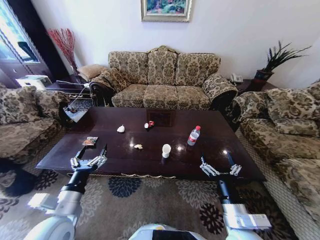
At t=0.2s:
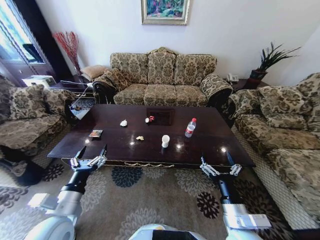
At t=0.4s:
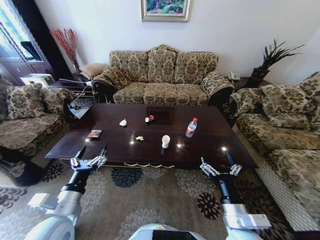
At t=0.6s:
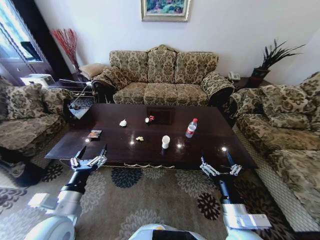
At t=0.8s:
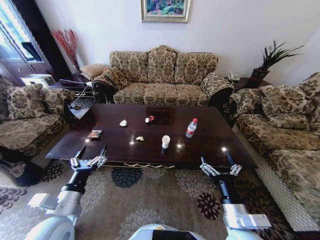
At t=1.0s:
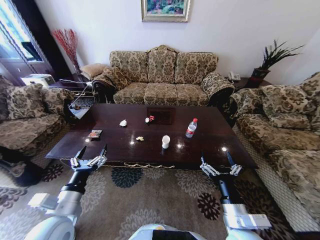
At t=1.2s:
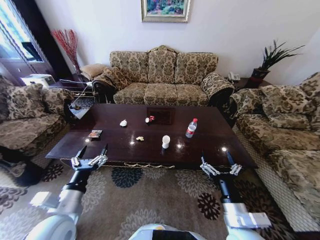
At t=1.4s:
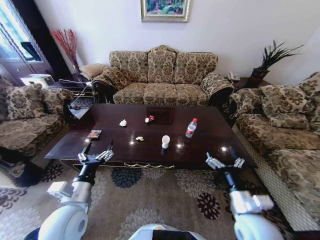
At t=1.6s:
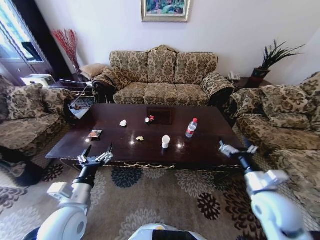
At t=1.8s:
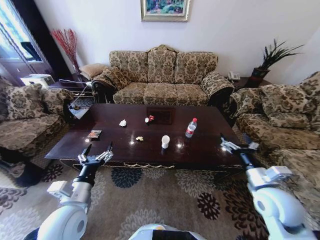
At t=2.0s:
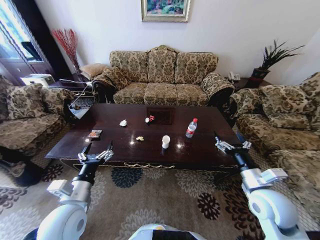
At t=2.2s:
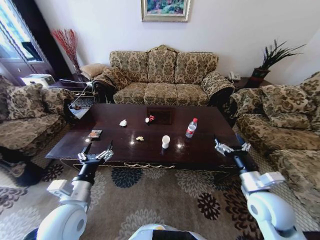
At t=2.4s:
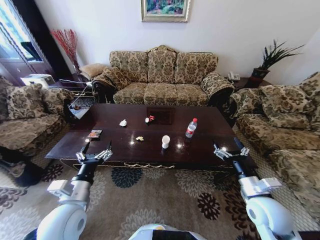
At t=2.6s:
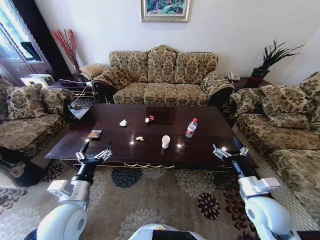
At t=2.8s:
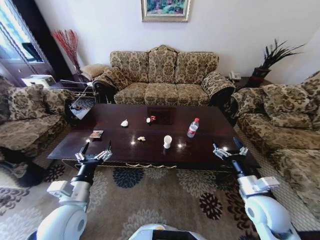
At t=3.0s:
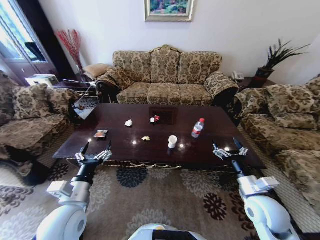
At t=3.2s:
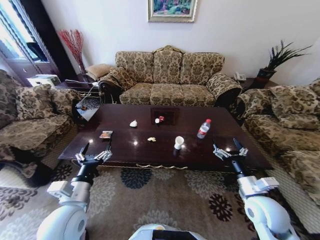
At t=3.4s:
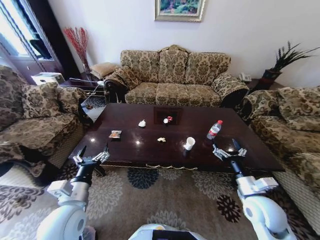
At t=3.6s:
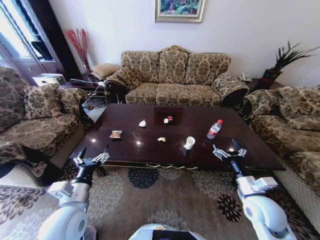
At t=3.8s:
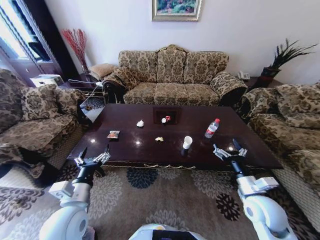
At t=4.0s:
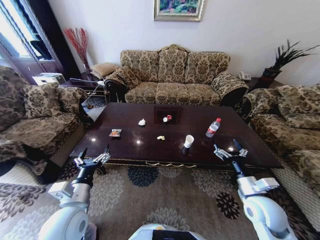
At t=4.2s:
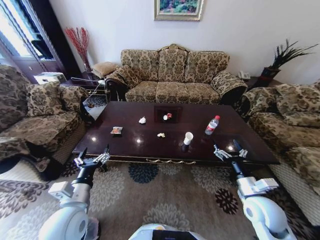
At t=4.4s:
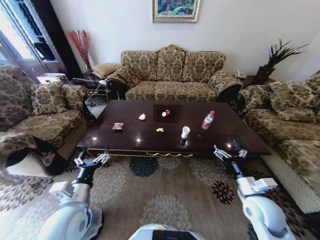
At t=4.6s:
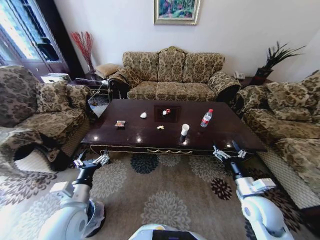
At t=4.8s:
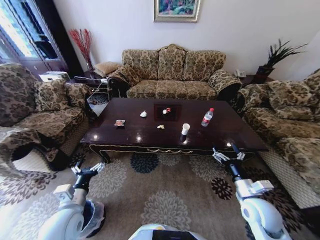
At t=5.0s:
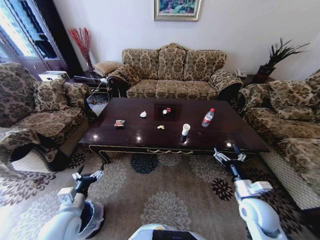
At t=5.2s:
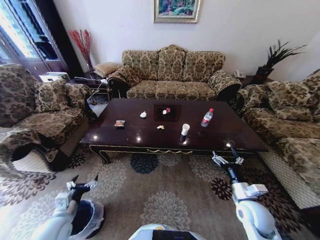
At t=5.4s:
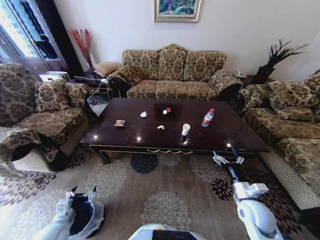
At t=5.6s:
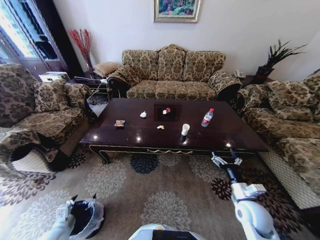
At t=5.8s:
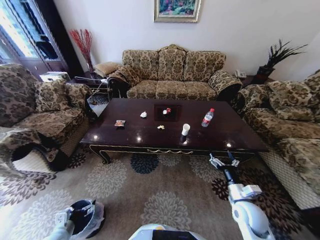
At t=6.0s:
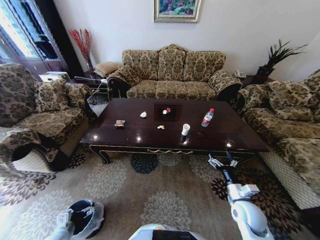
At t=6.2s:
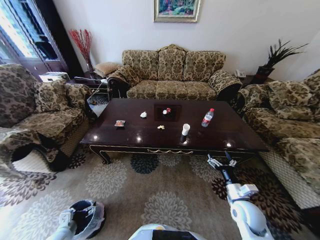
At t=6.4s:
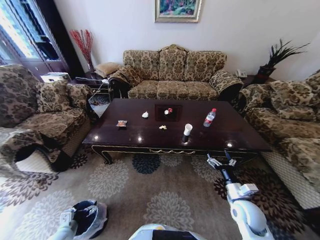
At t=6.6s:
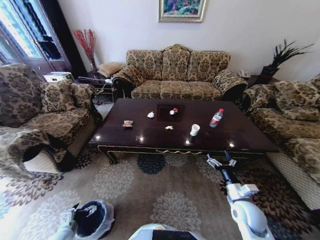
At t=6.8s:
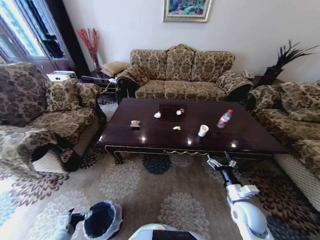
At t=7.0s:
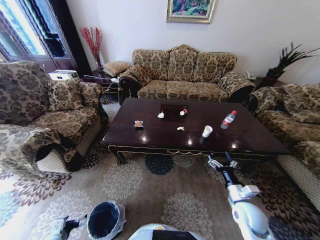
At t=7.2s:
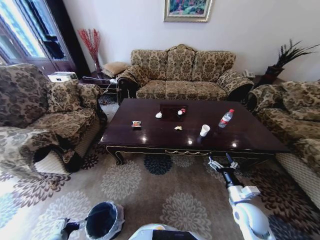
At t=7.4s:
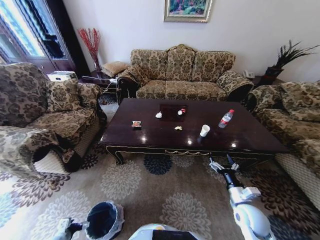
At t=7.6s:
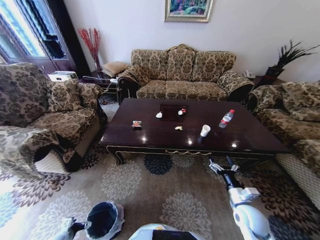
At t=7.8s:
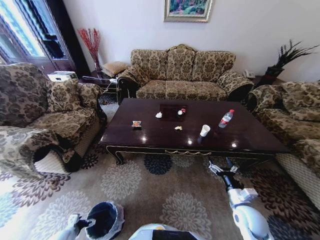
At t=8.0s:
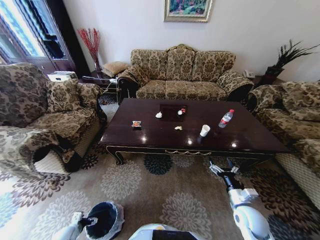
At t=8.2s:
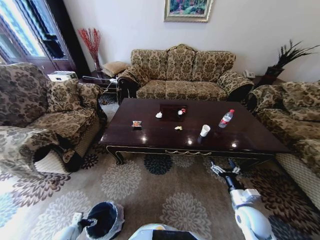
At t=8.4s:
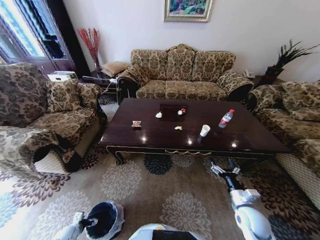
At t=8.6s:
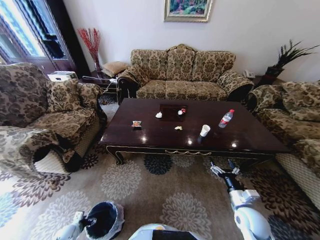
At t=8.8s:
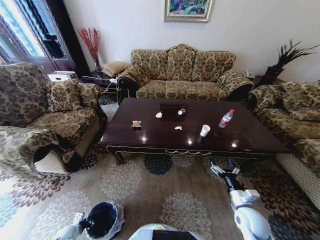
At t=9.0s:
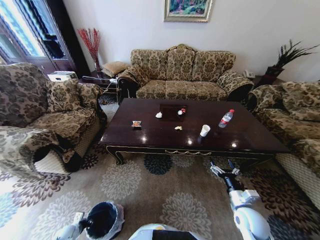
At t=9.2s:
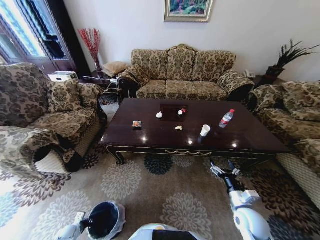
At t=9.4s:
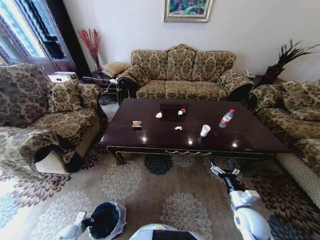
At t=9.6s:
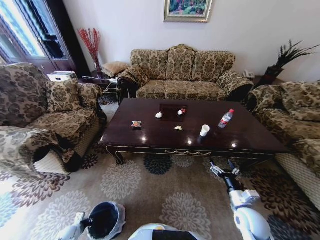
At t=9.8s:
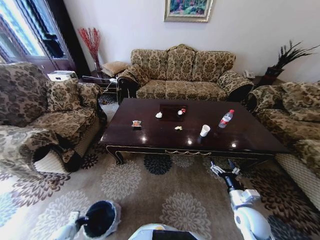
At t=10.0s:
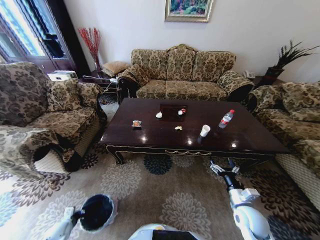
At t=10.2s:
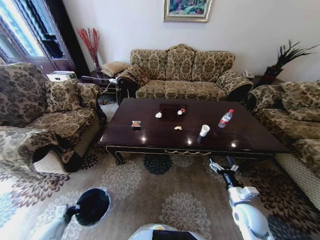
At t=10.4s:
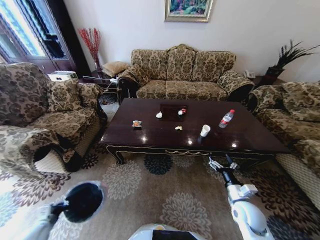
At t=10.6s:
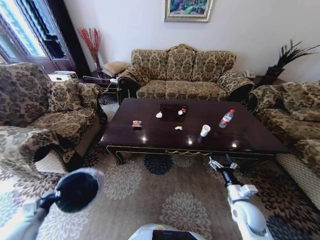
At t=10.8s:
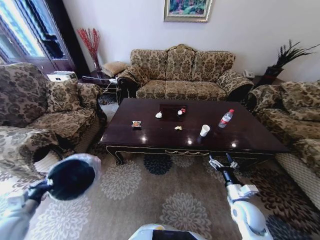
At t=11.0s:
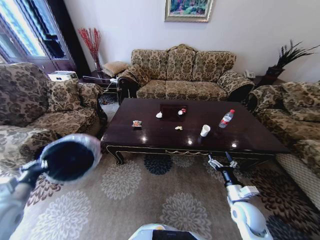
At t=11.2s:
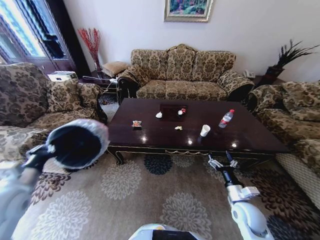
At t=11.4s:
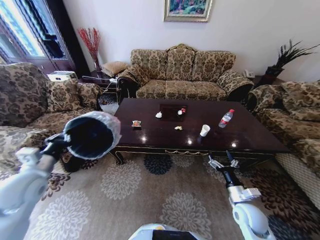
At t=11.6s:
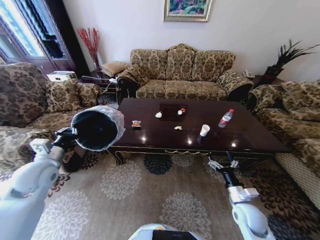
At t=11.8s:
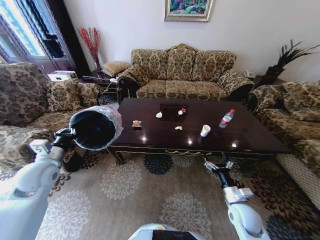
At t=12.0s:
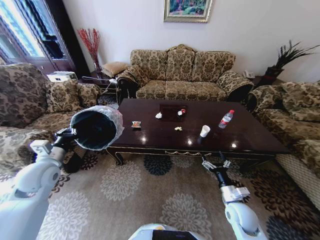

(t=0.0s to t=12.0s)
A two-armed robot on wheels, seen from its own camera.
Task of the whole recording: Move to the front of the table and place the trash on the table into the trash bin.
t=4.4s - t=6.0s: The right gripper travels downward by some 5 cm. Meanwhile the left gripper goes approximately 25 cm downward and to the left.
t=6.0s - t=7.6s: The left gripper heads downward and to the left, covering about 15 cm.
t=7.6s - t=9.0s: The left gripper heads downward, covering roughly 10 cm, and closes its fingers.
t=9.0s - t=10.4s: The left gripper heads upward, covering about 20 cm, and closes its fingers.
t=10.4s - t=12.0s: The left gripper heads upward and forward, covering about 30 cm.

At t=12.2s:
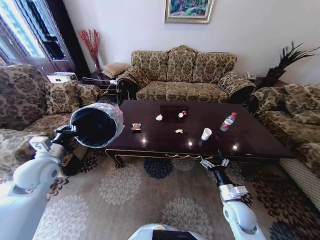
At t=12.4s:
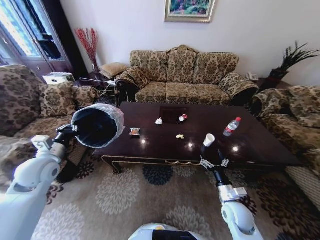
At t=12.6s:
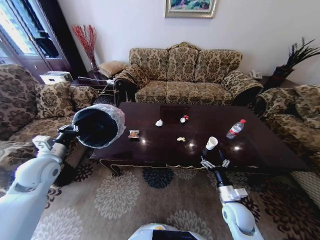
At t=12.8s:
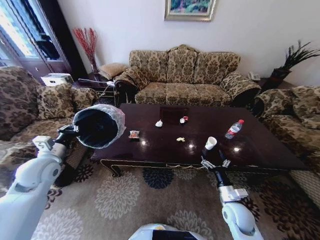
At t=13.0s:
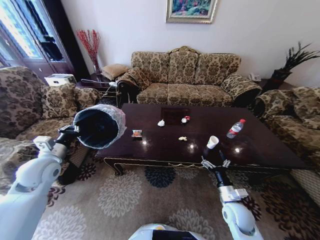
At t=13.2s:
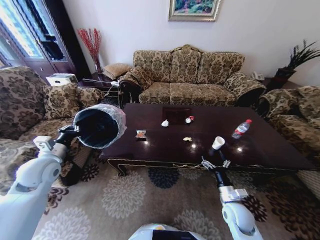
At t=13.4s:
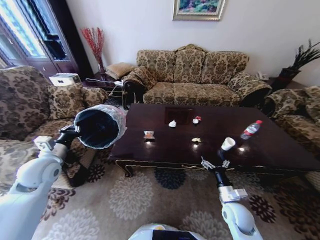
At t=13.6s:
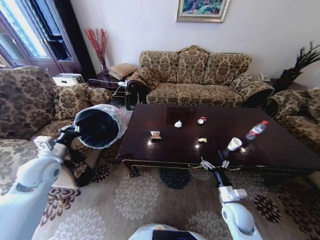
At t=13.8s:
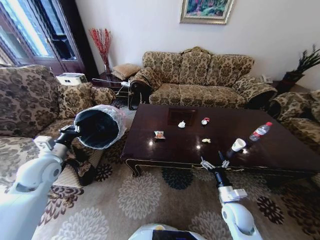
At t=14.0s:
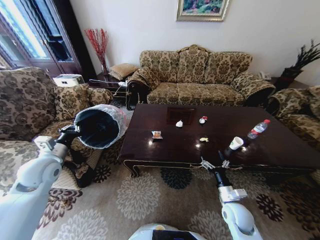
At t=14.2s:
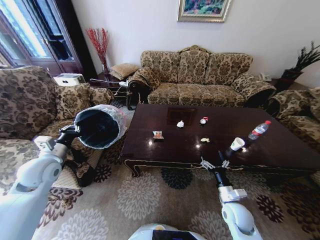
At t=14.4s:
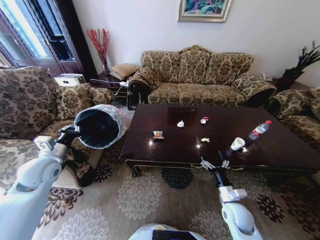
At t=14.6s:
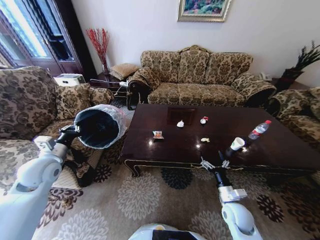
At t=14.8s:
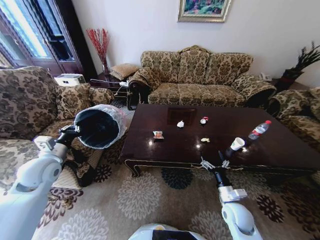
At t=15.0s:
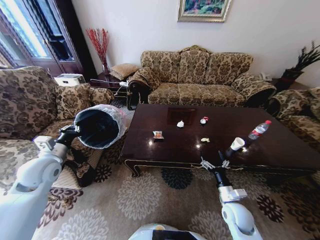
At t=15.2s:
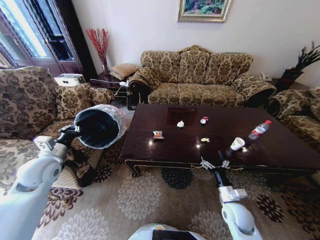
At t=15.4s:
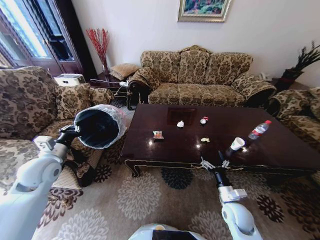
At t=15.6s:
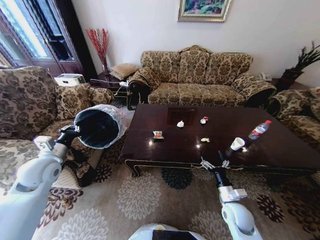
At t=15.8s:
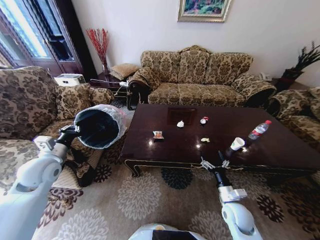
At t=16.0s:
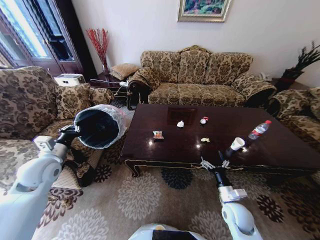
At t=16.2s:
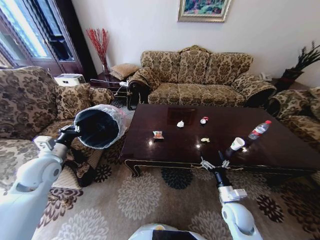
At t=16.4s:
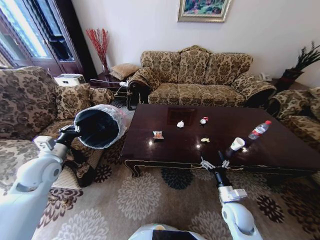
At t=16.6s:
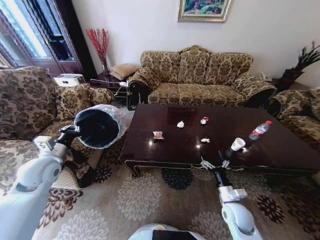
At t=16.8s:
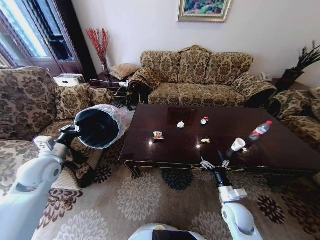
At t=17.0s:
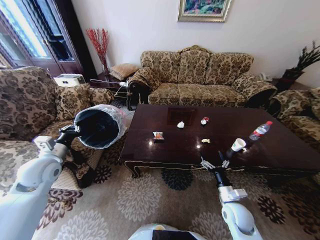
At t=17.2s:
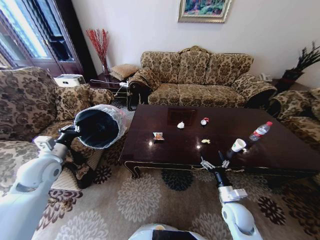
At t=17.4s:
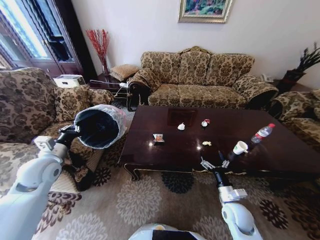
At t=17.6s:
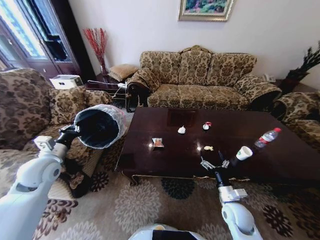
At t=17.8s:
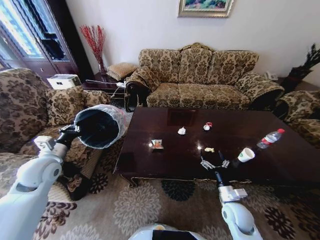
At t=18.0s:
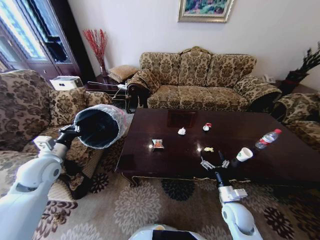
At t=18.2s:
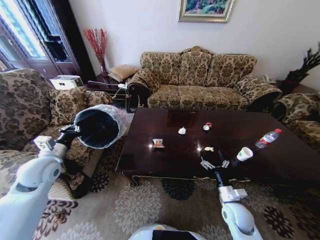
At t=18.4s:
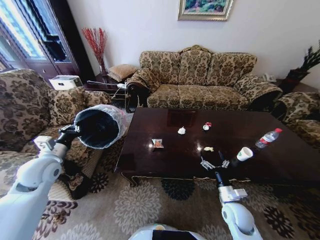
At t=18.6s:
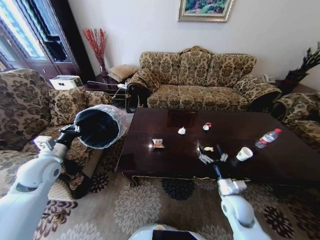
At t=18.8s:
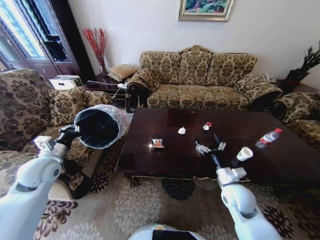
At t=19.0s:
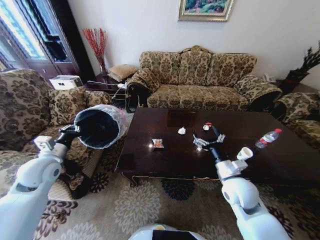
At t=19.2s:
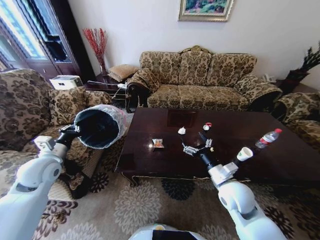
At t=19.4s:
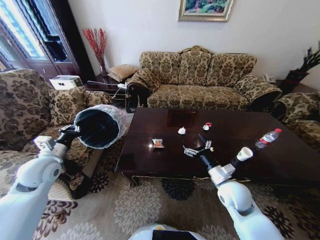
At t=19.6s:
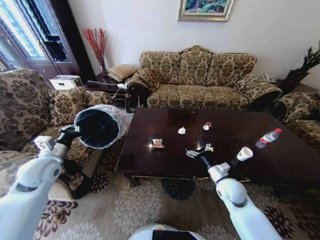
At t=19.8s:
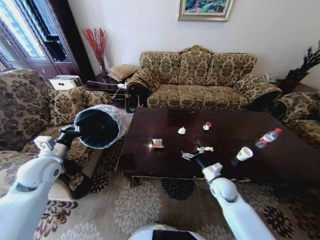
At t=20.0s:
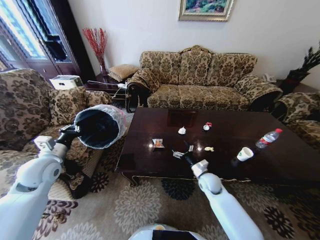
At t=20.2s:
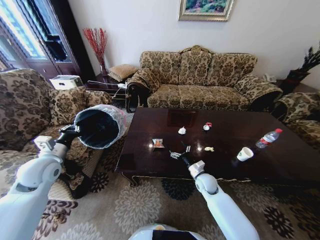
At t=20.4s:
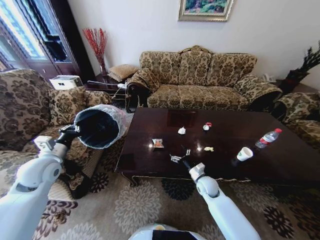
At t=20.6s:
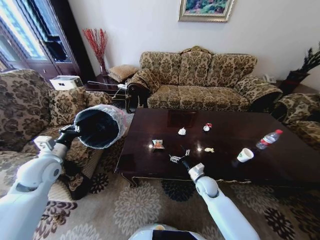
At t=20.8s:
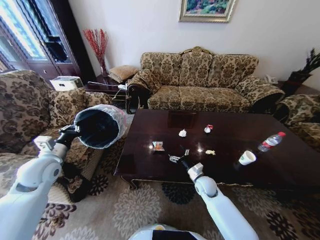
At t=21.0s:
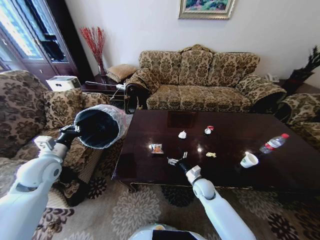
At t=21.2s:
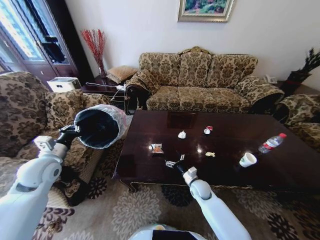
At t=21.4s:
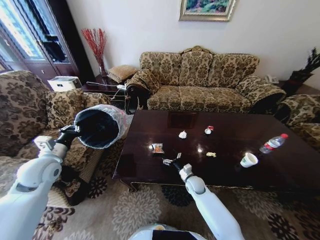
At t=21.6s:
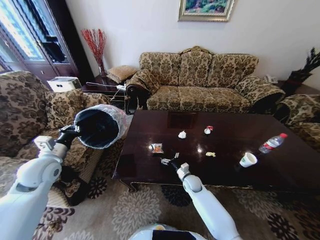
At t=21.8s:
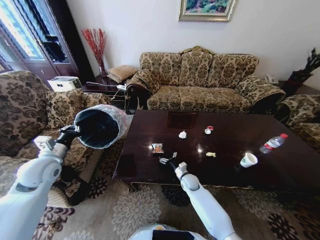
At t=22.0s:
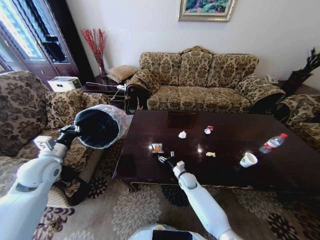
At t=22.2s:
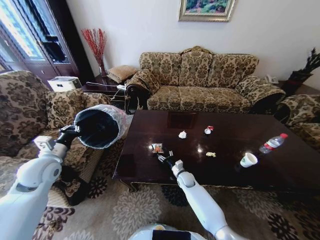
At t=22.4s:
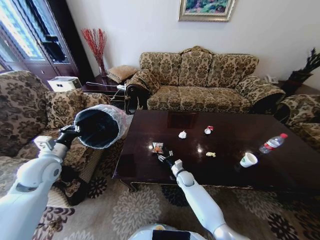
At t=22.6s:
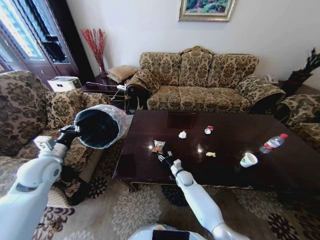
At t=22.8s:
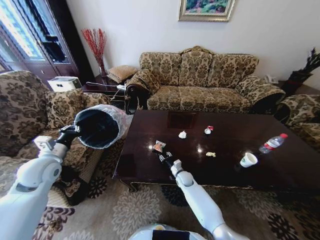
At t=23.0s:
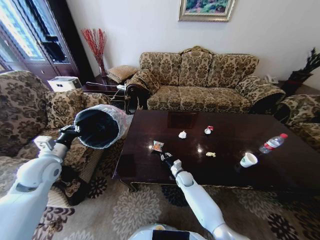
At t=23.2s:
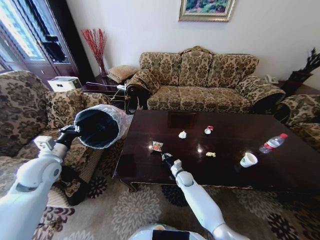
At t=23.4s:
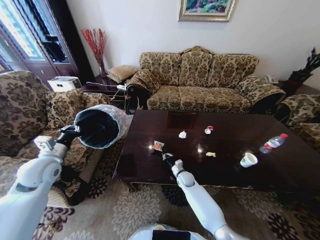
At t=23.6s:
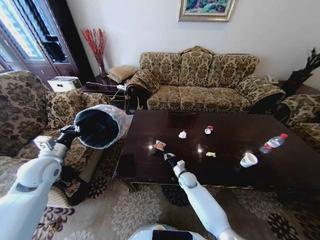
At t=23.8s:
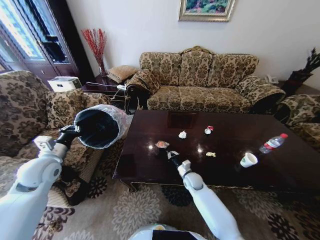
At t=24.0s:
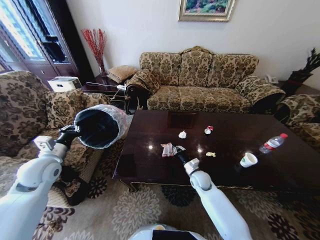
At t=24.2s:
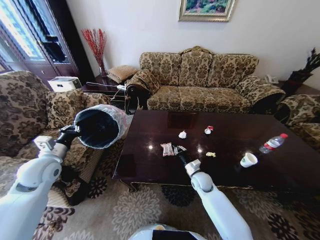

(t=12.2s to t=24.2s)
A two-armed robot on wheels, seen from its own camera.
Task of the whole recording: Move to the front of the table and place the trash on the table into the trash bin.
t=13.8s - t=16.6s: Both grippers stay put.
t=18.2s - t=19.8s: The right gripper travels forward by approximately 10 cm, and goes upward and returns, about 15 cm each way.
t=19.8s - t=21.2s: The right gripper heads downward and to the left, covering about 10 cm.
t=21.2s - t=22.6s: The right gripper goes roughly 10 cm forward and to the left.
t=22.6s - t=24.2s: The right gripper is displaced upward and to the right by some 10 cm, and closes.
